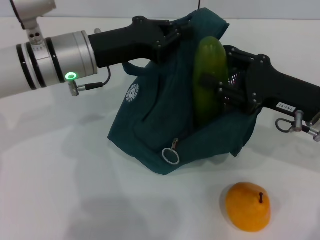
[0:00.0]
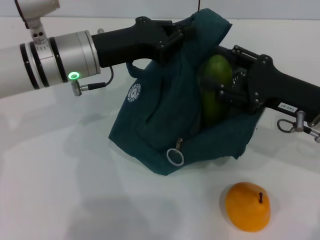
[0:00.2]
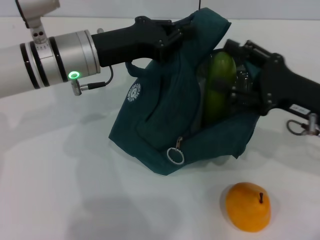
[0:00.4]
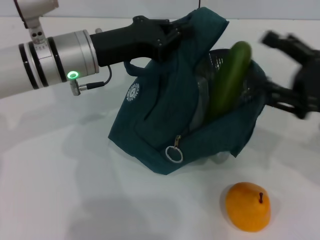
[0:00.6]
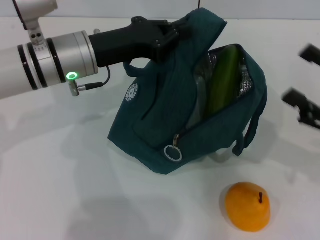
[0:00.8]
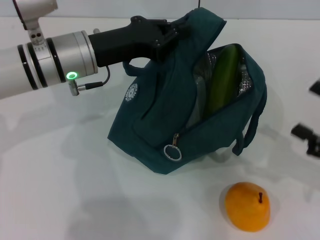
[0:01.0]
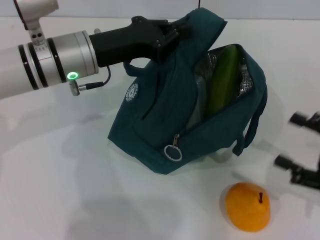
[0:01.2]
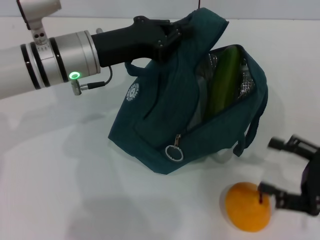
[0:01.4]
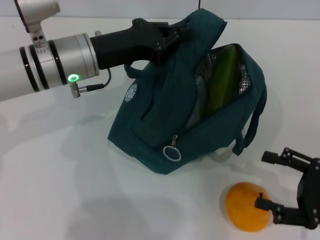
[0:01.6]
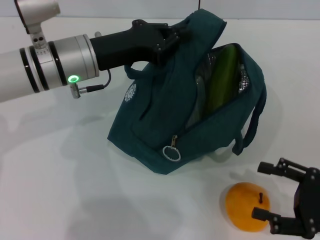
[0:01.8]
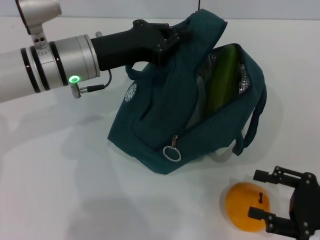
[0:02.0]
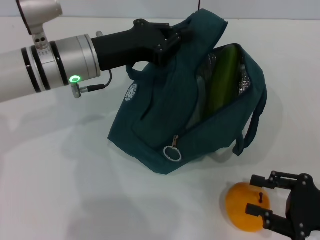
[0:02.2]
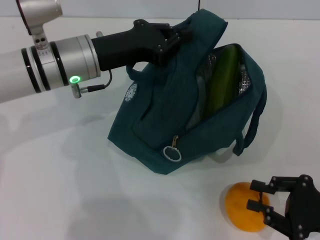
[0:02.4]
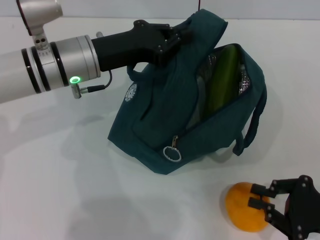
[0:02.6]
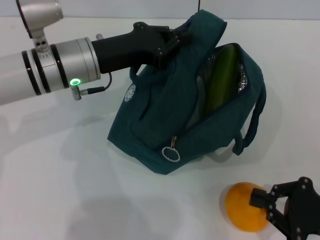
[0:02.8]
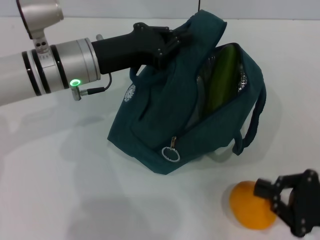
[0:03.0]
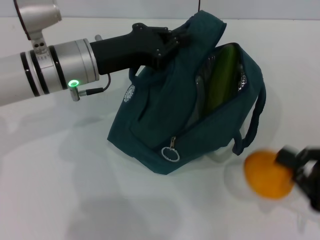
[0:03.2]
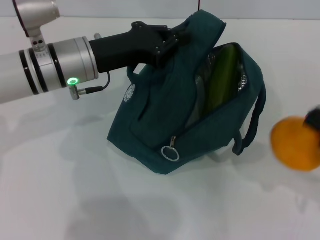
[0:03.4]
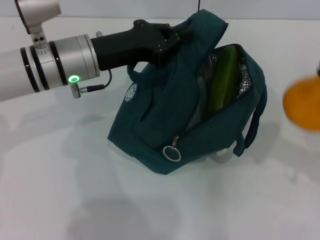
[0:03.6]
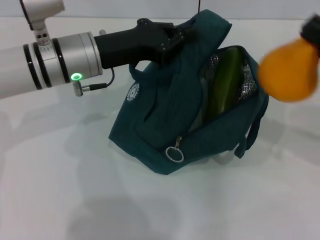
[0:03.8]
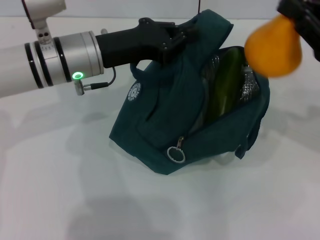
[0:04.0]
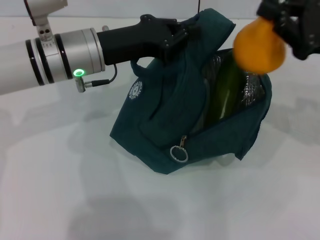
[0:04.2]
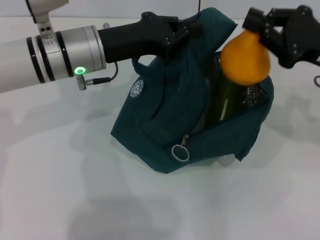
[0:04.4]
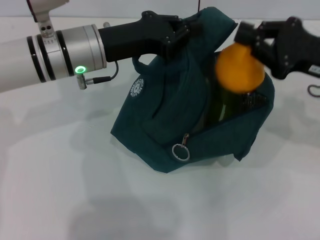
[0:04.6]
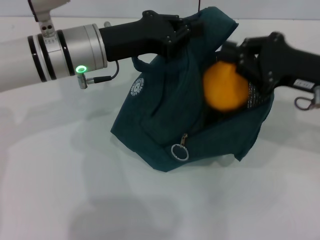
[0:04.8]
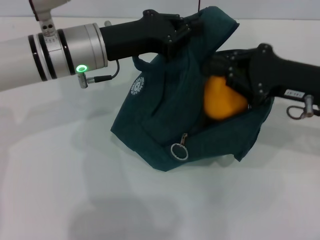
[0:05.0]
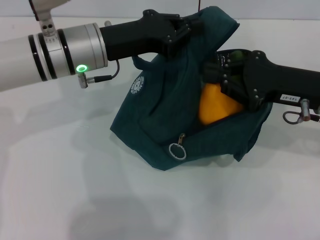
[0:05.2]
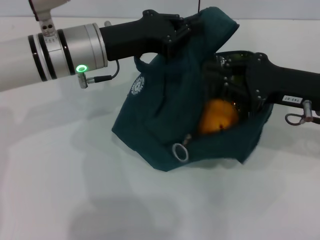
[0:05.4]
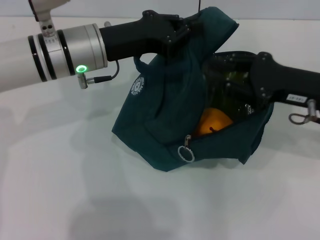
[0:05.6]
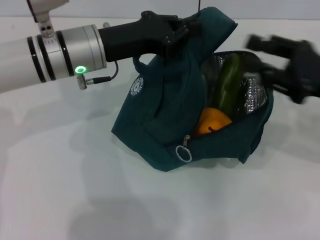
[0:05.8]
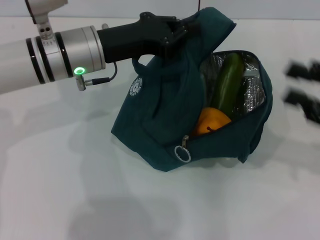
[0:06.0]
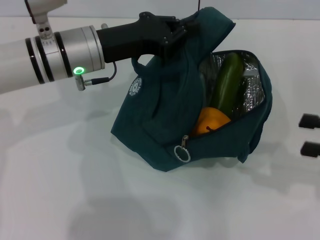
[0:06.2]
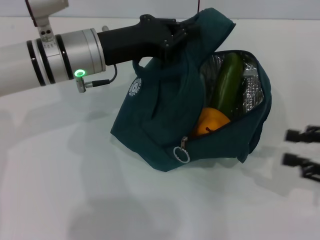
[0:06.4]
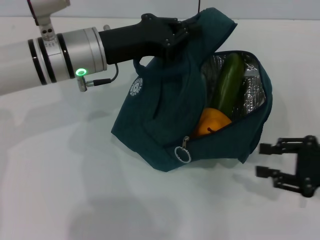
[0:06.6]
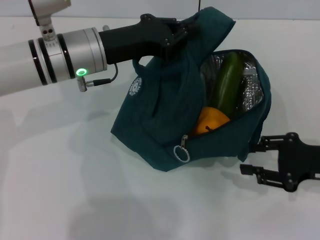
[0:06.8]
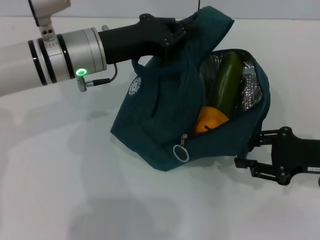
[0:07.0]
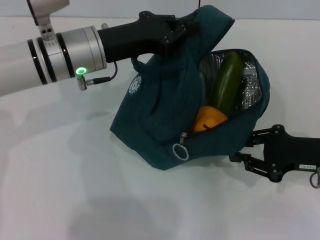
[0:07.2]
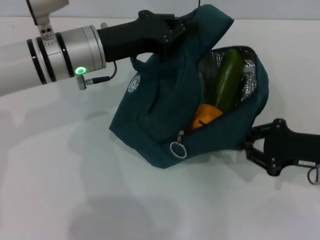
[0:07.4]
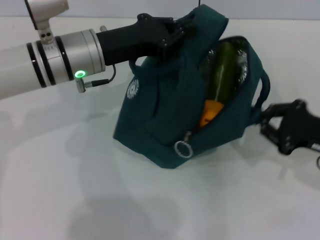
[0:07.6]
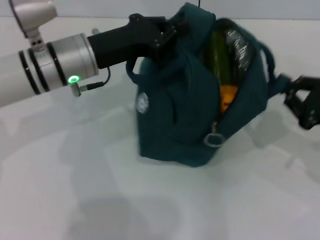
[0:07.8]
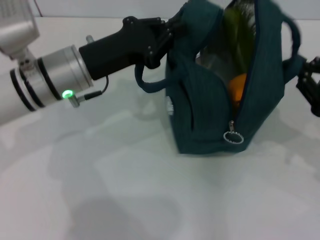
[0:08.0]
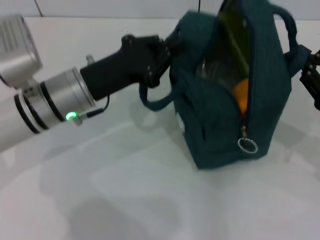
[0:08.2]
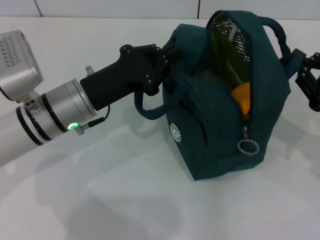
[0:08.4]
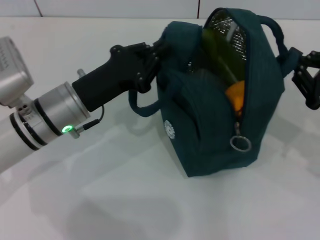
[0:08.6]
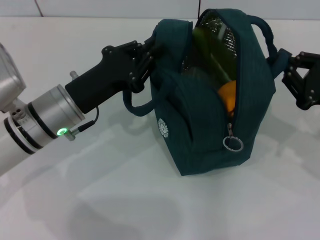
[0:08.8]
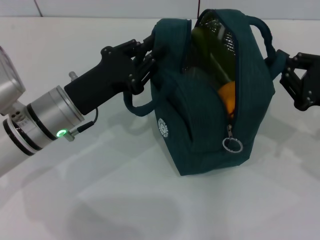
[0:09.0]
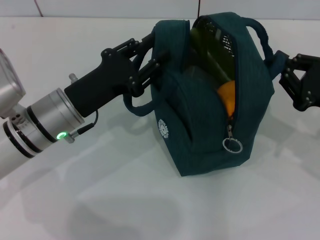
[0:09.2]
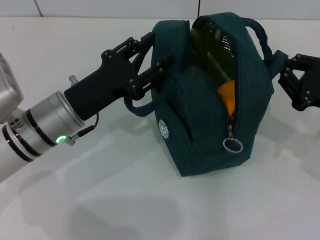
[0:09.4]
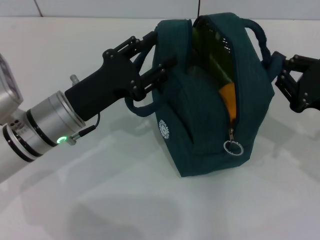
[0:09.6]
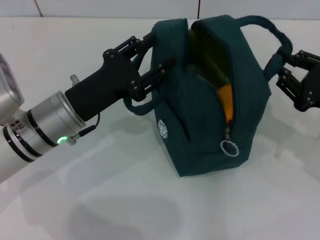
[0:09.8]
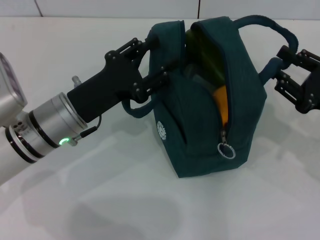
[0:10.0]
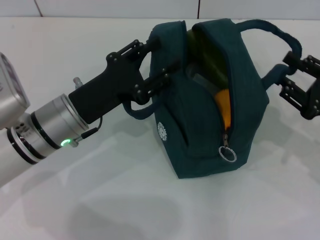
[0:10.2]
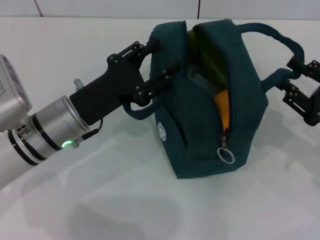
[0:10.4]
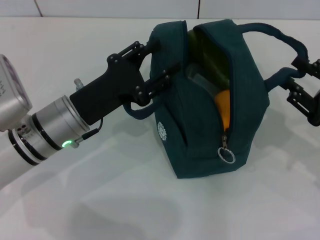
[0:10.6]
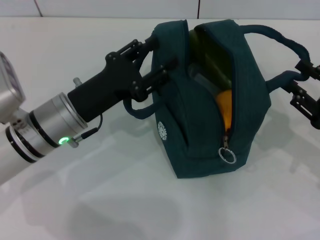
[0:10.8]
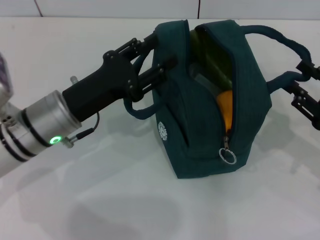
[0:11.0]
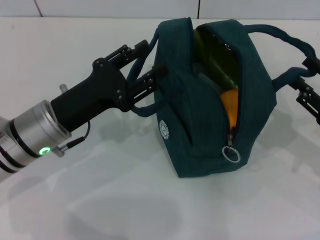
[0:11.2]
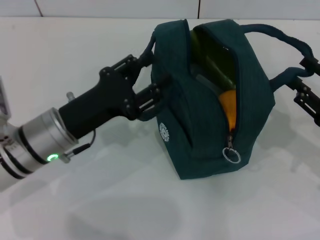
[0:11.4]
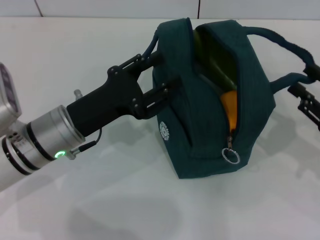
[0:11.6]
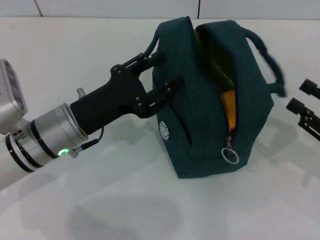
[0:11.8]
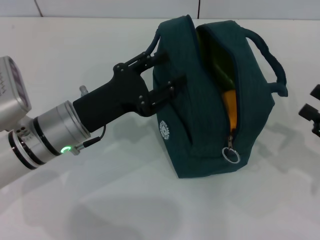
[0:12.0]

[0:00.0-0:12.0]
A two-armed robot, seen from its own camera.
Step, 0:00.8 to 0:02.4: Grab the pear with your right hand.
Step, 0:05.8 to 0:09.4: Hold the lunch bag with your left hand.
Step, 0:09.6 to 0:11.6: Hold the lunch bag with your right hand.
0:00.0 to 0:01.6: The right gripper shifts some 15 cm backward, to the right and downward.
0:01.6 to 0:03.0: The right gripper closes up.
0:03.0 to 0:04.4: The right gripper heads forward and upward, covering roughly 20 cm.
0:04.4 to 0:06.0: The right gripper moves backward and to the right, some 10 cm, and opens its fingers.
0:06.0 to 0:07.6: The right gripper goes approximately 5 cm downward, and closes up.
0:07.6 to 0:09.0: The left gripper travels backward and downward by roughly 10 cm.
0:09.0 to 0:10.4: The right gripper opens up; the left gripper opens its fingers.
0:10.4 to 0:12.0: The right gripper shifts by some 5 cm.

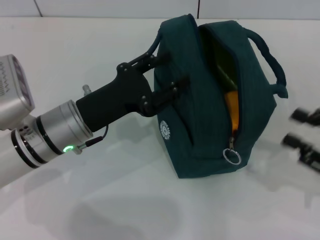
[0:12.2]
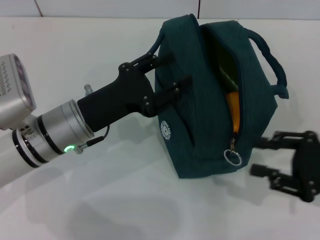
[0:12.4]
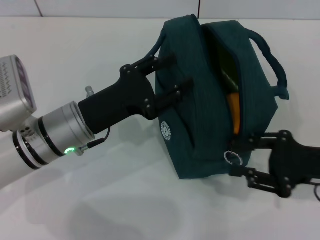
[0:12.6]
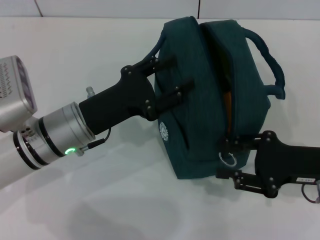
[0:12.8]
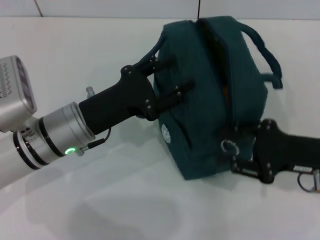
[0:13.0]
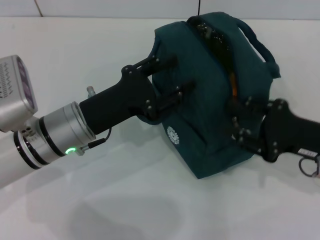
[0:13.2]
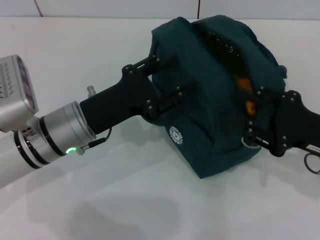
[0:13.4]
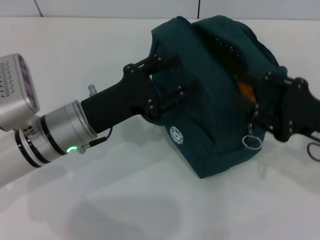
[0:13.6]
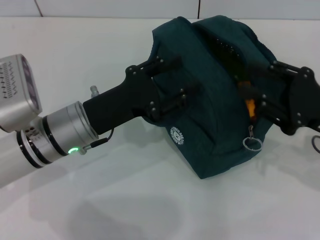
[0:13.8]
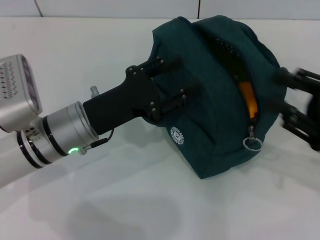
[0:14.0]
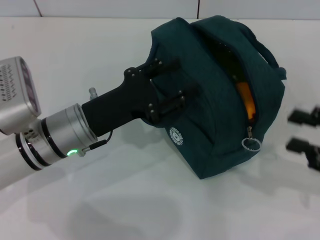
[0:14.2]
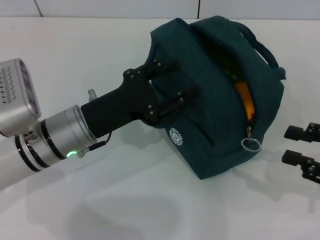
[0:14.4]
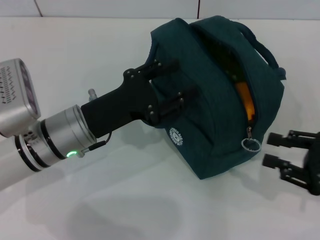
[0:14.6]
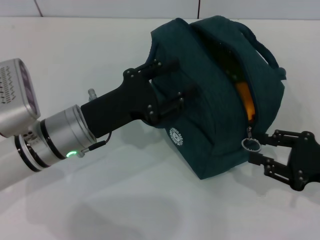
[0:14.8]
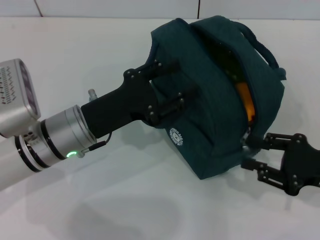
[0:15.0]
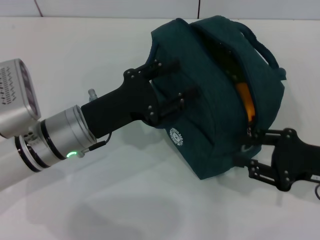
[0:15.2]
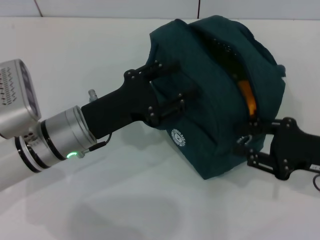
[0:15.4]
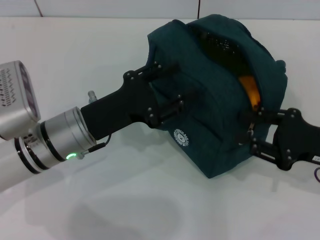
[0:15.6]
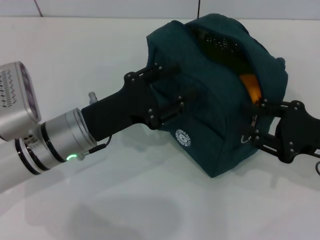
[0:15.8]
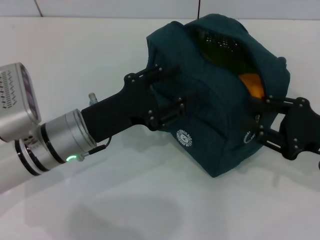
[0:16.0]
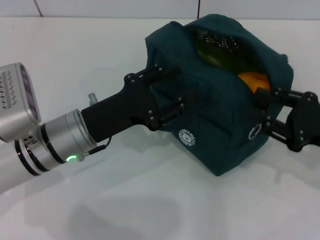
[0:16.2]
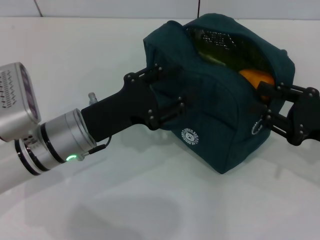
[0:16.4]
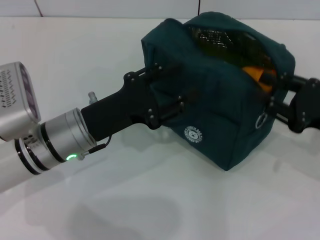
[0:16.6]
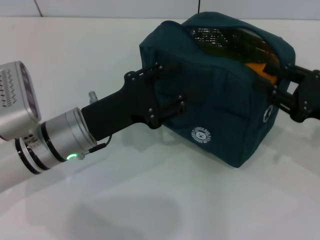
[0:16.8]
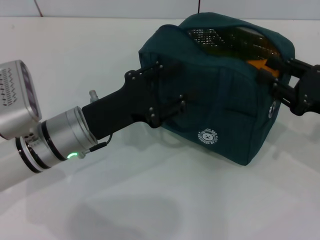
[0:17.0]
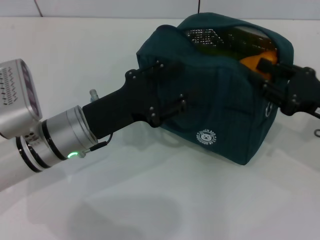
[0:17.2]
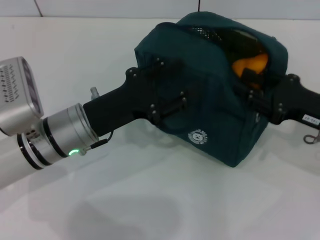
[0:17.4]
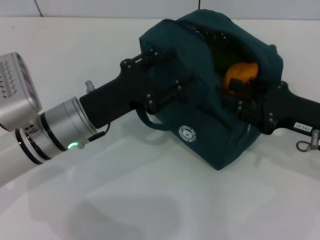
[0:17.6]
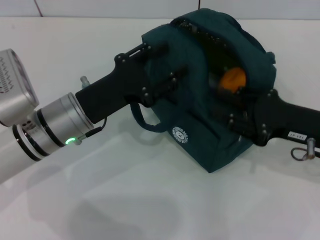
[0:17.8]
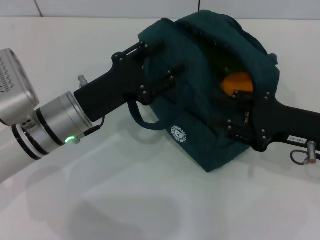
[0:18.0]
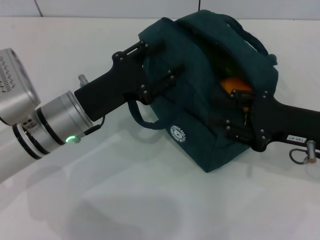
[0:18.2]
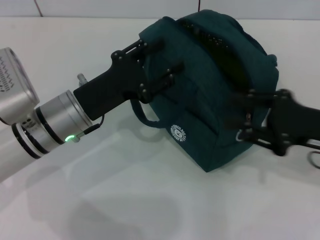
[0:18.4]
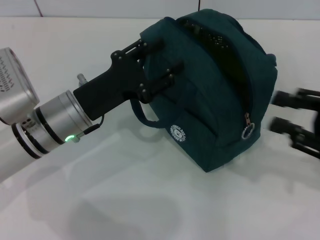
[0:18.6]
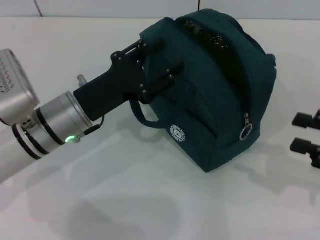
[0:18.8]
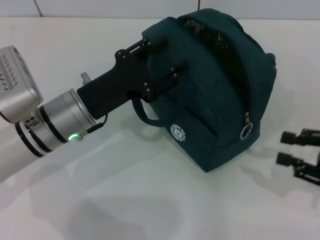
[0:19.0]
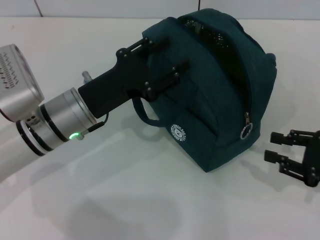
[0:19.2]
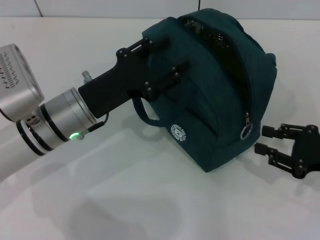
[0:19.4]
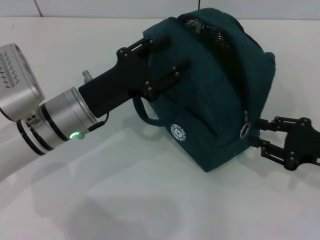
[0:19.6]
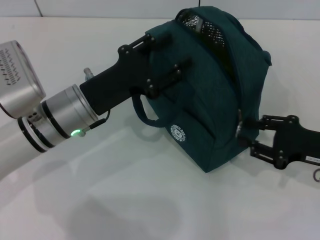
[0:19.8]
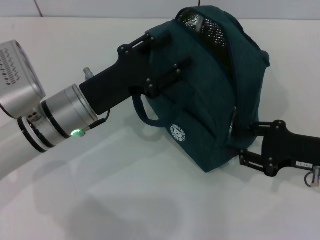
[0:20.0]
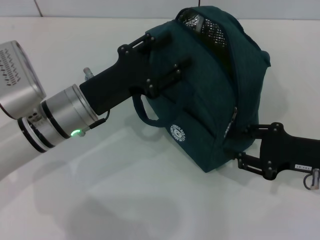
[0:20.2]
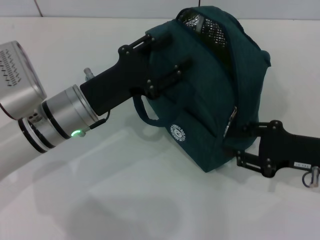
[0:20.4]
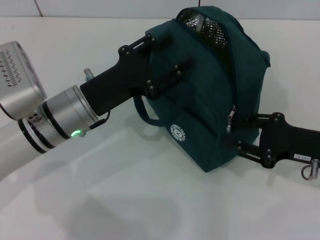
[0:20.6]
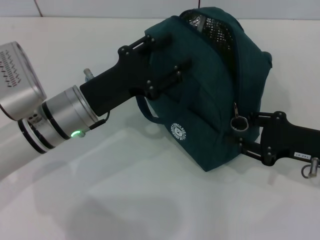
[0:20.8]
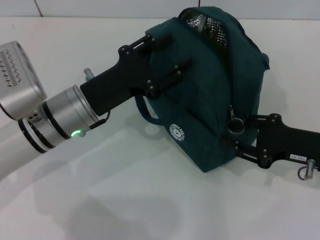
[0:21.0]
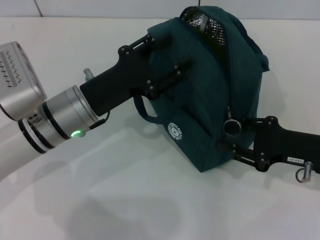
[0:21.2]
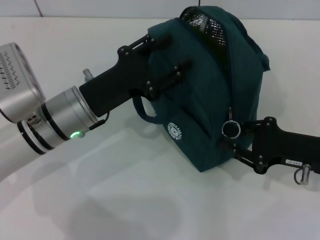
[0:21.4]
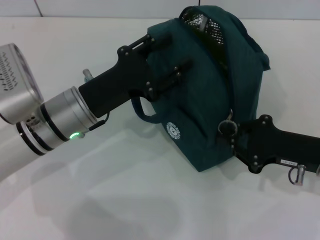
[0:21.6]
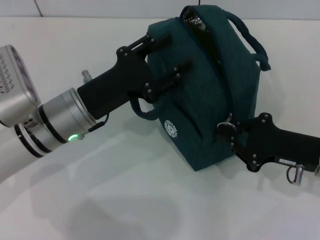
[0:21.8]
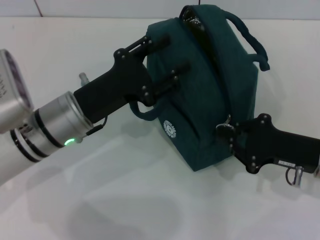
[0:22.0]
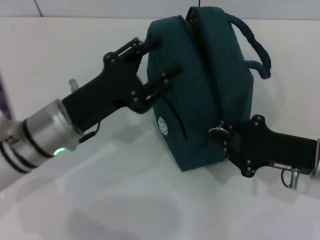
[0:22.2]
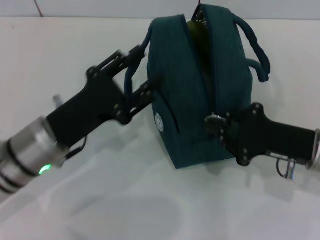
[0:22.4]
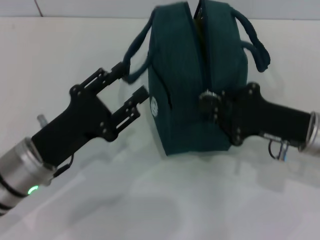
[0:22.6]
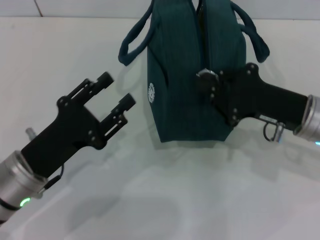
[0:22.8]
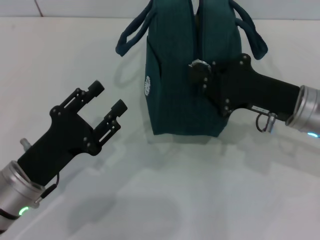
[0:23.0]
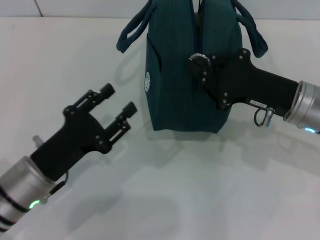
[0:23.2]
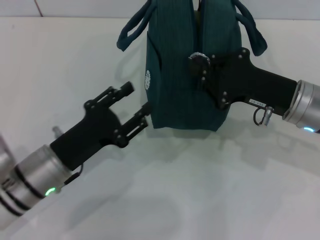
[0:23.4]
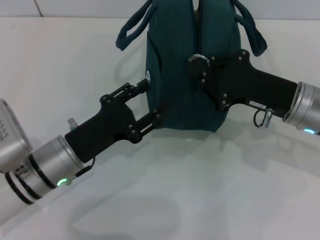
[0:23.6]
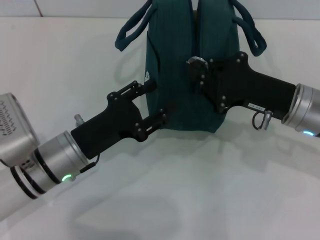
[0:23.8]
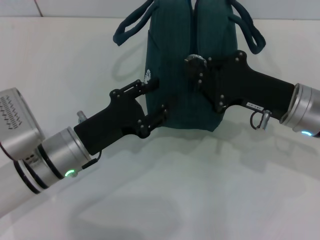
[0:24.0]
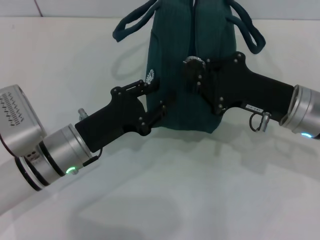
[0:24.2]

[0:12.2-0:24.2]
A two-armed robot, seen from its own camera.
0:12.2 to 0:13.8: The right gripper is displaced to the left by about 5 cm.
0:15.2 to 0:16.6: The grippers stay close to where they were, moving slightly.
0:16.6 to 0:18.2: The right gripper shifts by some 5 cm.
0:19.8 to 0:21.2: The grippers make only small movements.
0:21.2 to 0:22.6: The left gripper goes approximately 5 cm backward.
0:22.6 to 0:24.2: The left gripper ends up roughly 5 cm from where it was.
